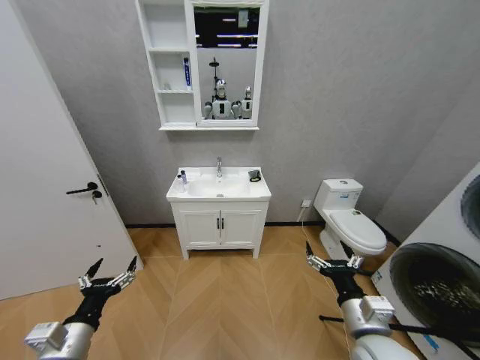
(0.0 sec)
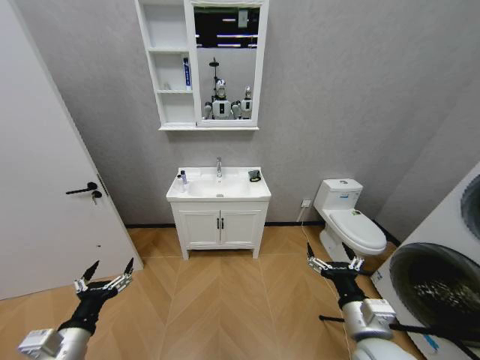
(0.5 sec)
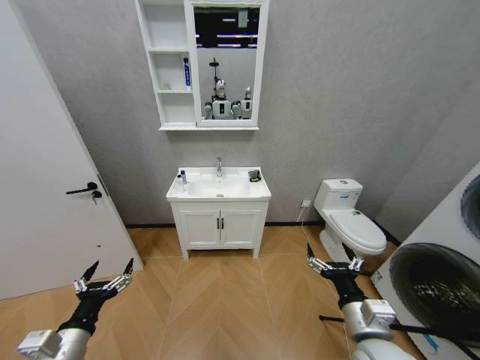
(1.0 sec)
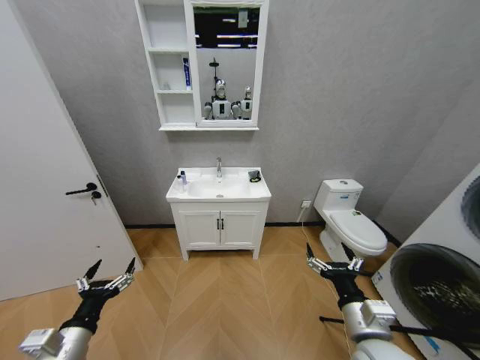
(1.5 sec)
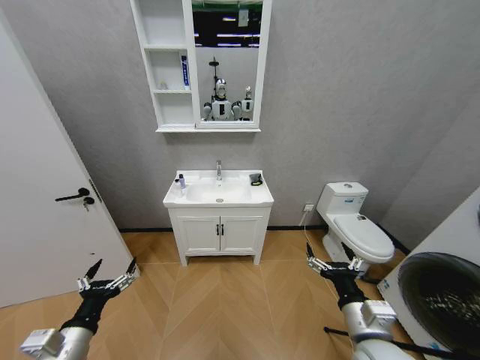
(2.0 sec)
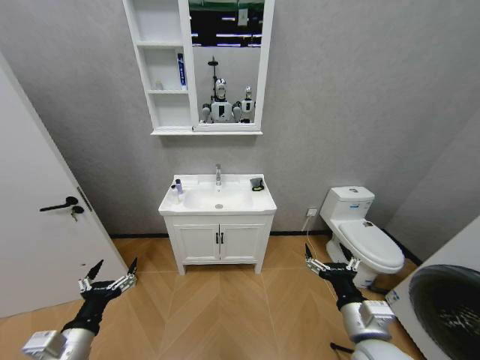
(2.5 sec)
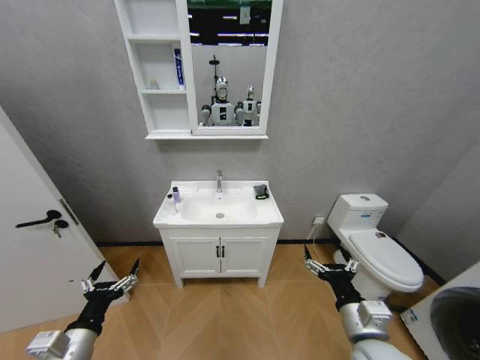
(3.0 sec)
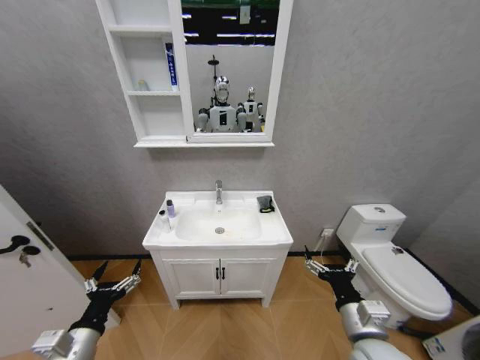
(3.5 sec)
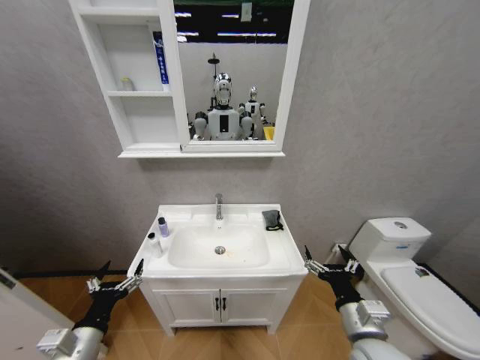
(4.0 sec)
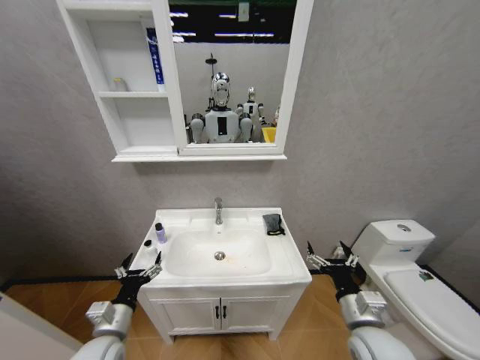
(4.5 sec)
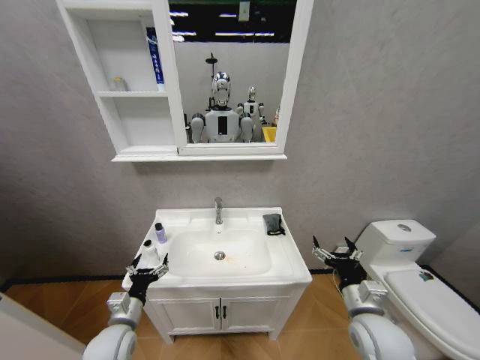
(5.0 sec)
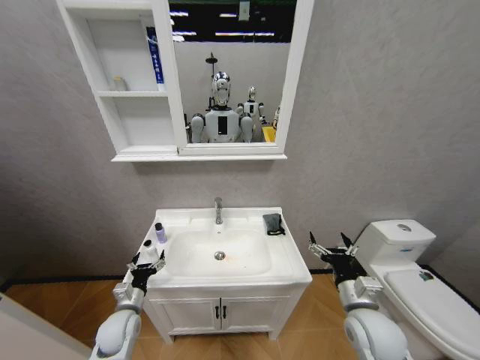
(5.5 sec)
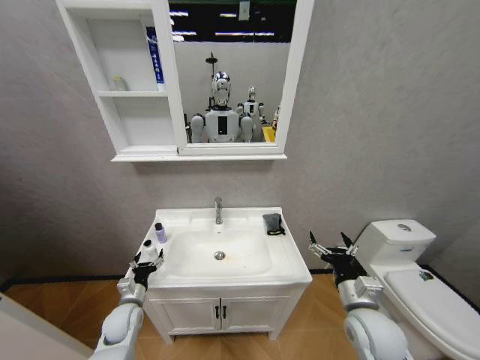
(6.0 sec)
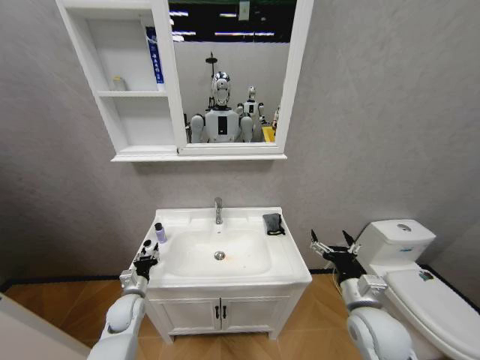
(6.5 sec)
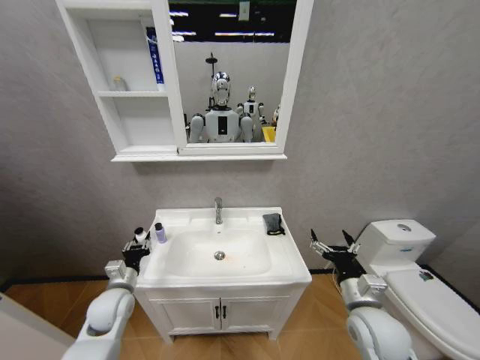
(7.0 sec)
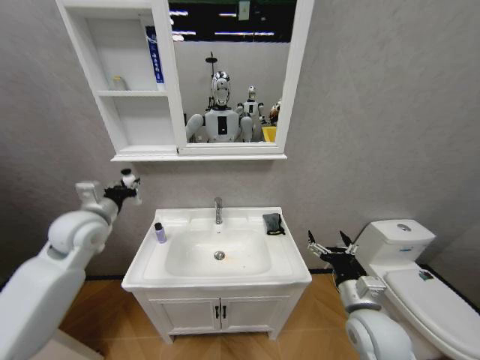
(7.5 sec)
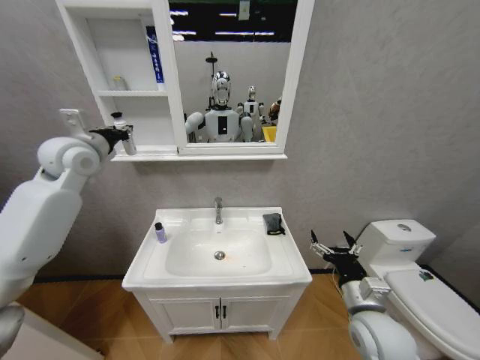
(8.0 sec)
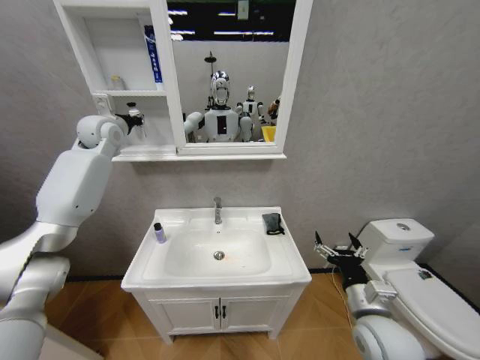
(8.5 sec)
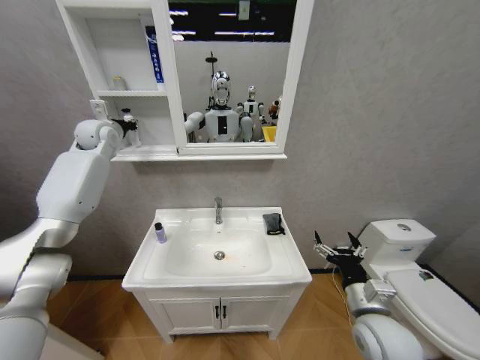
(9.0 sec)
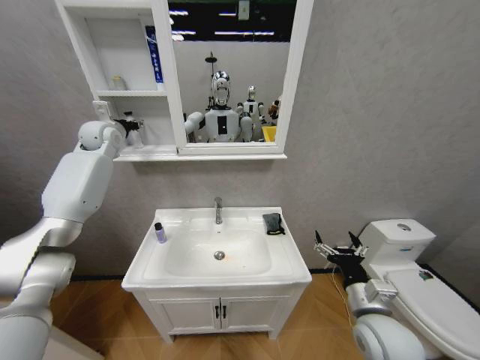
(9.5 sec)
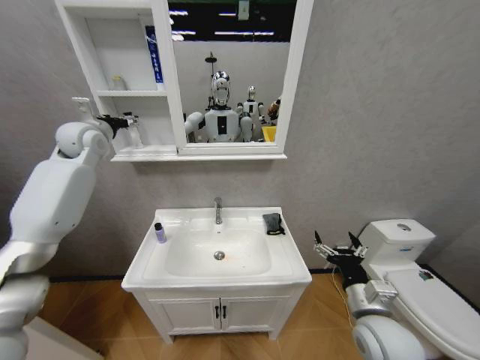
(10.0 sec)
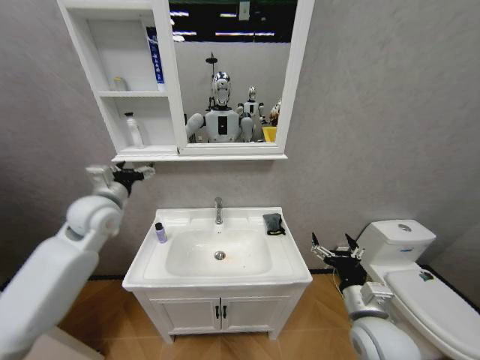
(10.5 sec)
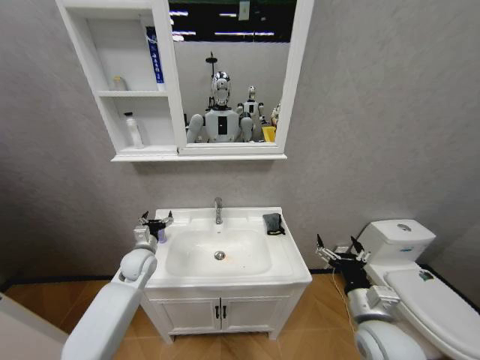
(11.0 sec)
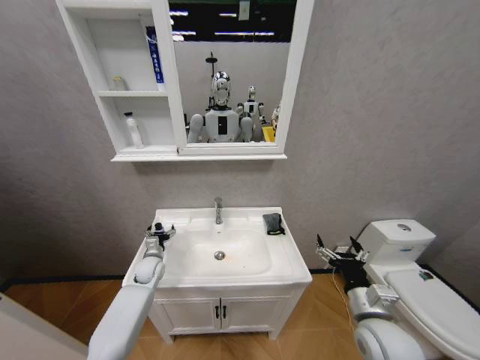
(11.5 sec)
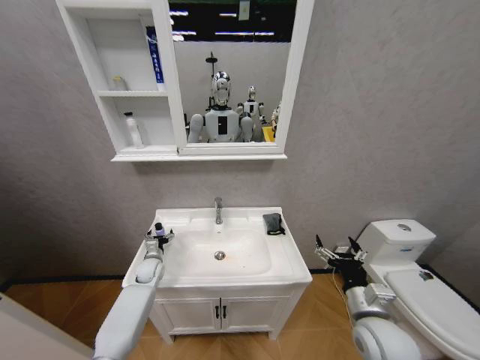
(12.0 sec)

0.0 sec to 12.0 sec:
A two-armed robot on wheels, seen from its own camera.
Task of the whole recording: Move facial cleanser and shampoo from washbasin to cabinet, then wipe washbasin with towel.
4.0 sec to 6.0 sec: The right gripper goes approximately 5 cm forward. Meanwhile the left gripper is displaced forward and downward by approximately 20 cm.
6.0 sec to 8.0 sec: The left gripper goes roughly 50 cm upward and forward, and closes its fingers.
8.0 sec to 10.0 sec: The left gripper shifts roughly 5 cm forward, and opens up.
10.0 sec to 12.0 sec: The left gripper shifts approximately 50 cm downward.

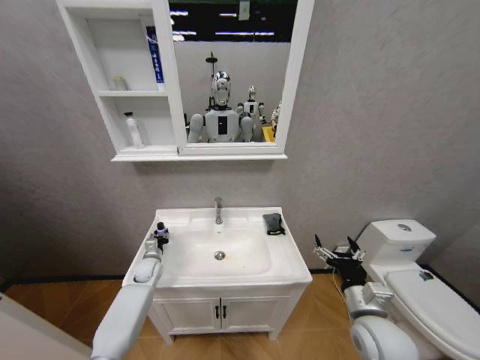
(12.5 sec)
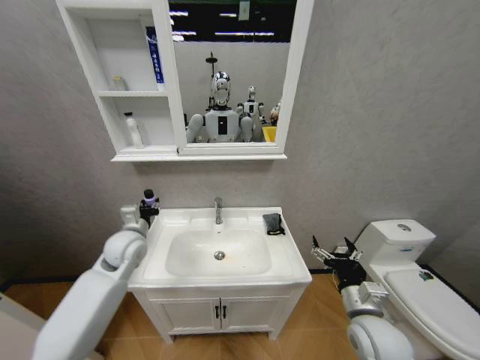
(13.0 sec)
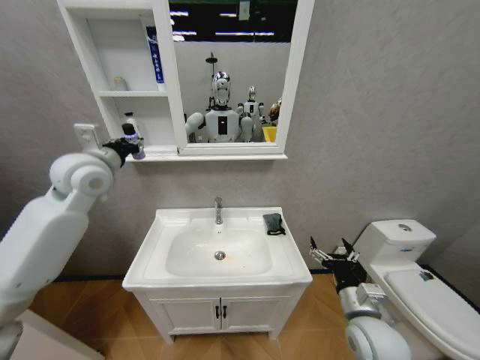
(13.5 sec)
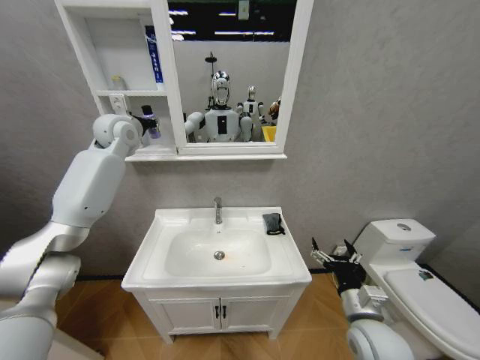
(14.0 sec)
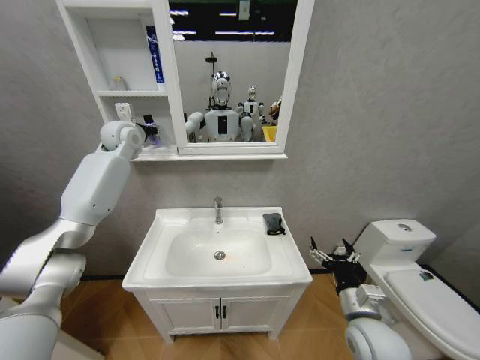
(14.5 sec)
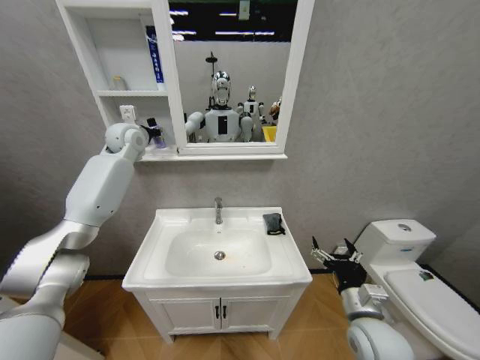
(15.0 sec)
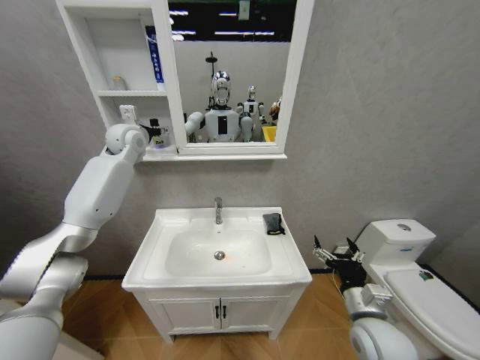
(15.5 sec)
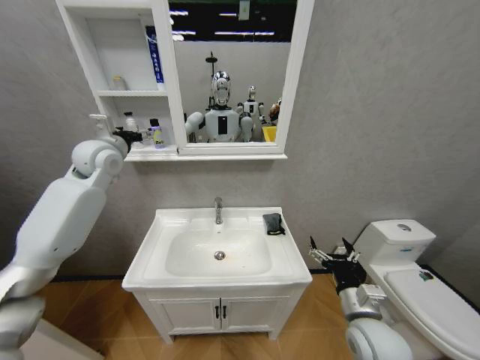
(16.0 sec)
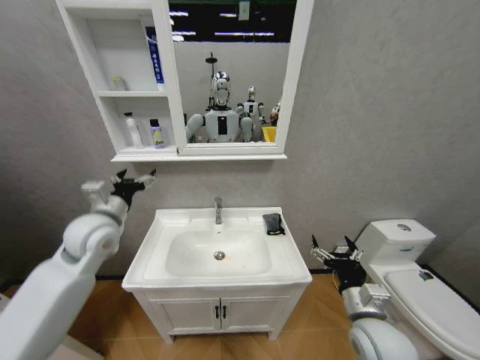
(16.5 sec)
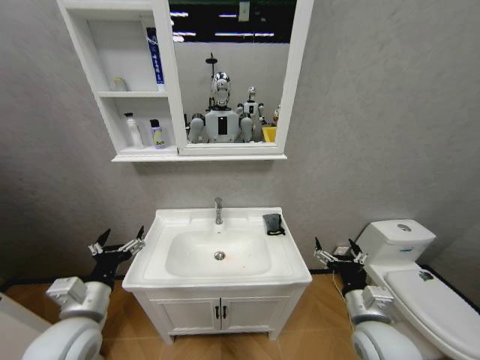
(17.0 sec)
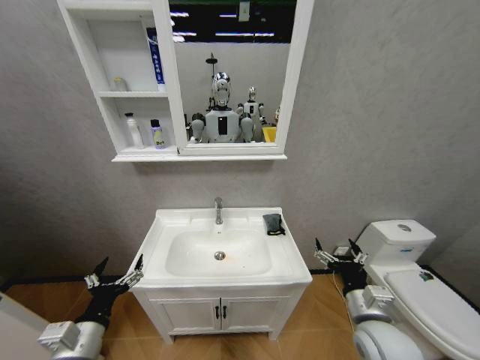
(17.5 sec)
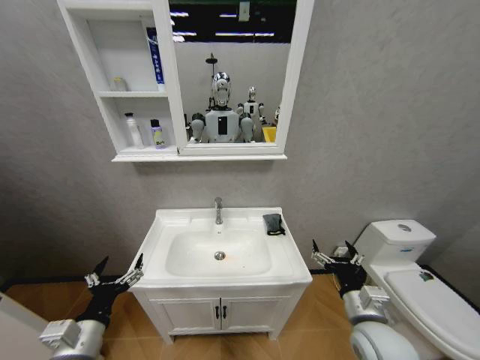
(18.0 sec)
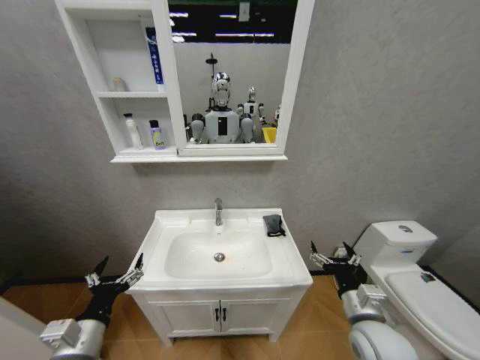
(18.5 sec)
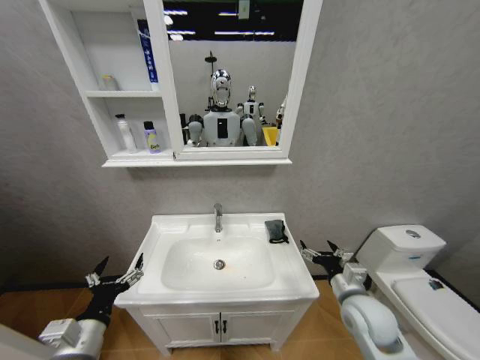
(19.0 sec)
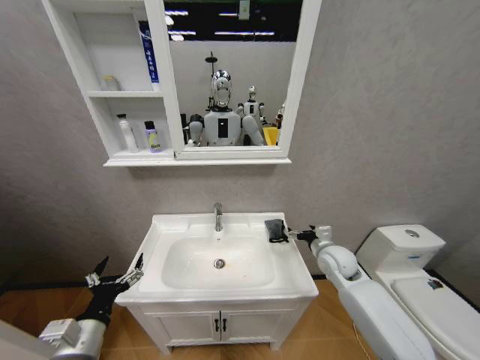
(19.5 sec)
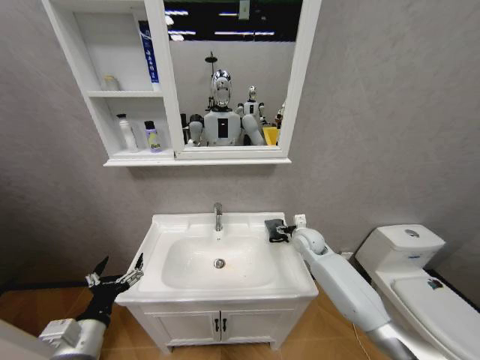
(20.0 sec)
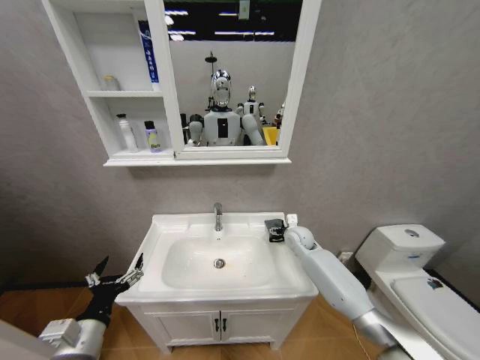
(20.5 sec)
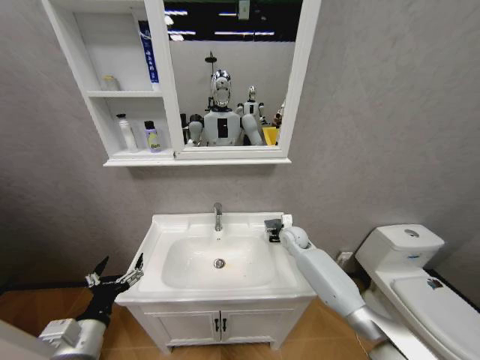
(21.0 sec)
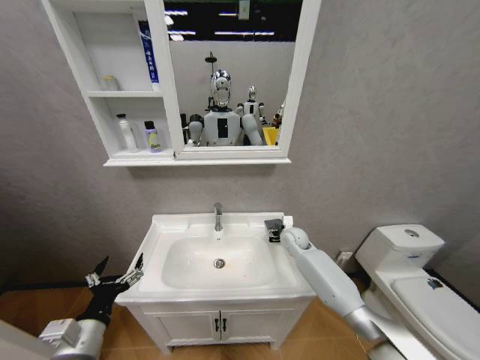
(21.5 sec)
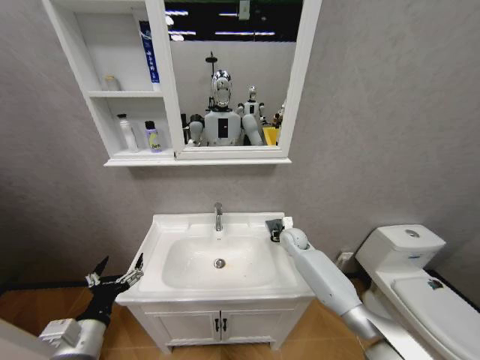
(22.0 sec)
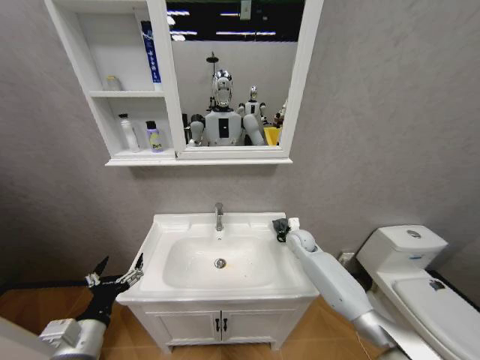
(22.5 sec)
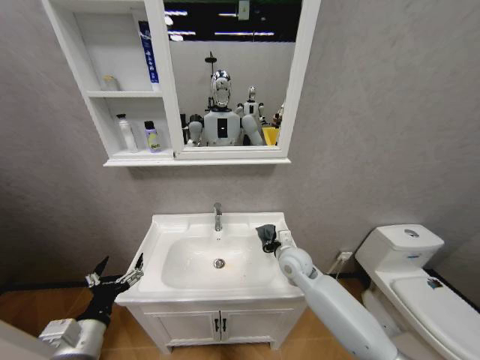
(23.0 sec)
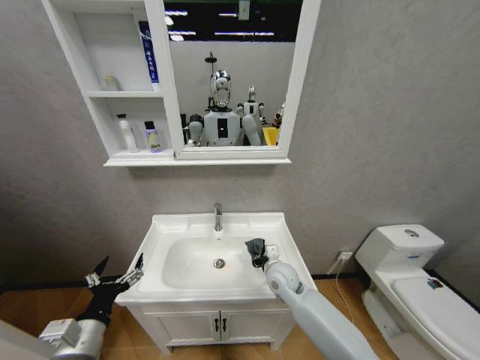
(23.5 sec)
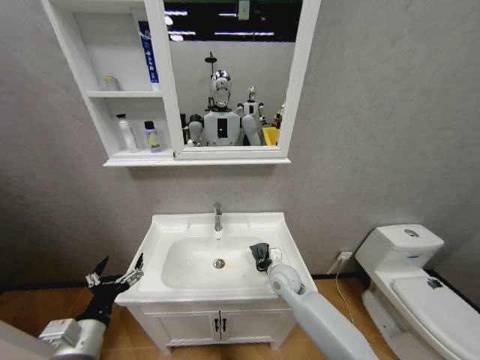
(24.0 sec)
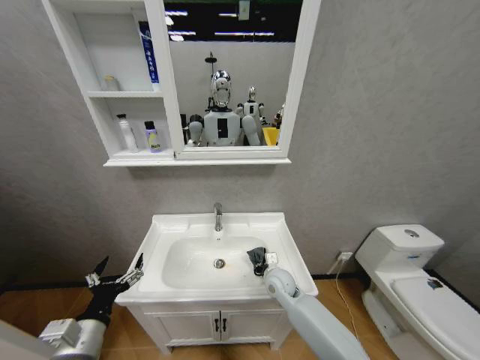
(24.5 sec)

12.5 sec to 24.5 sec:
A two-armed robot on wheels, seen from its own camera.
Task of the whole recording: Move facial cleanser and shampoo from washbasin to cabinet, then wipe washbasin with towel.
12.5 sec to 14.5 sec: The left gripper is displaced upward by roughly 40 cm.
14.5 sec to 16.5 sec: The left gripper travels backward and downward by approximately 30 cm, and opens up.
16.5 sec to 18.5 sec: The left gripper shifts about 25 cm backward and downward.
18.5 sec to 20.5 sec: The right gripper travels forward by roughly 30 cm.
20.5 sec to 22.5 sec: The right gripper closes up.
22.5 sec to 24.5 sec: The right gripper is displaced backward and to the left by some 15 cm.

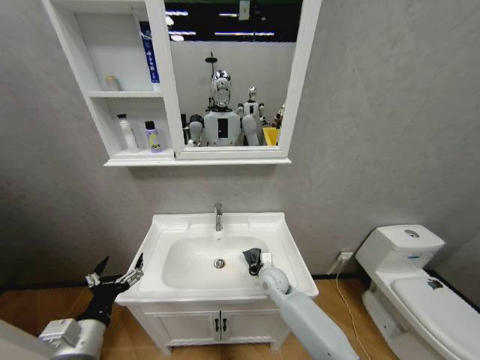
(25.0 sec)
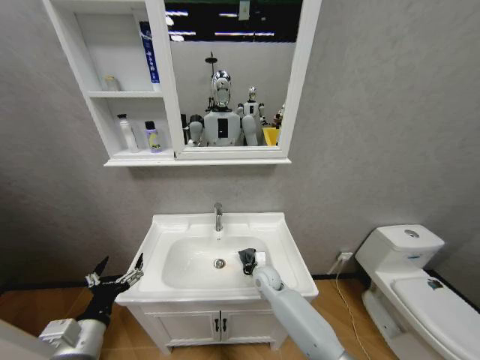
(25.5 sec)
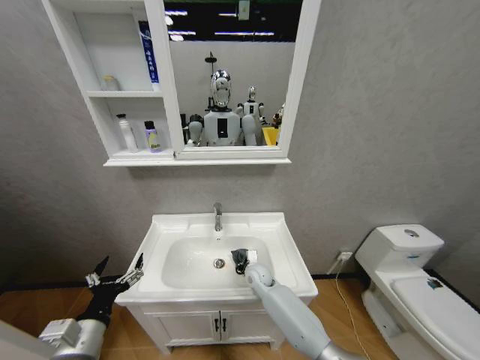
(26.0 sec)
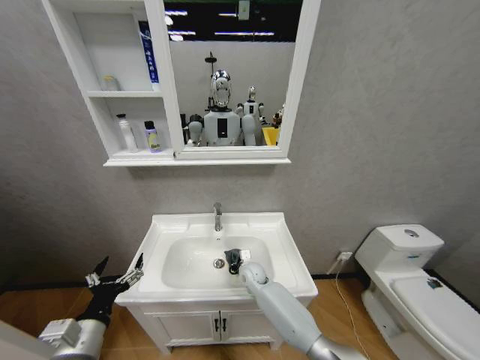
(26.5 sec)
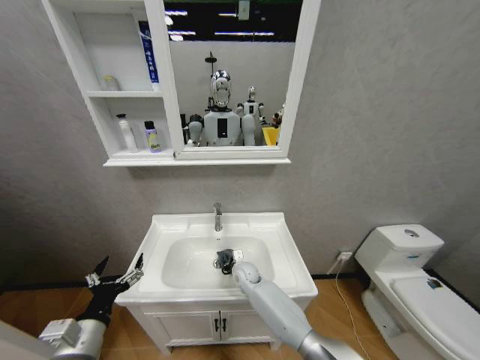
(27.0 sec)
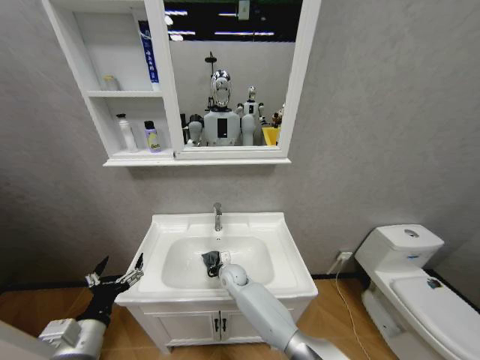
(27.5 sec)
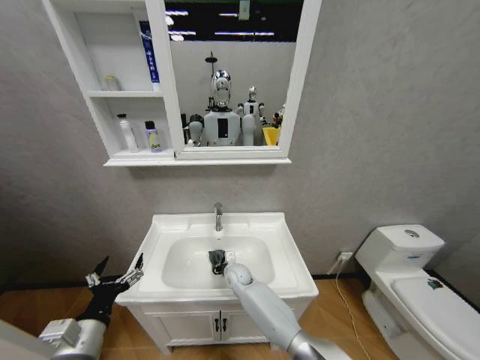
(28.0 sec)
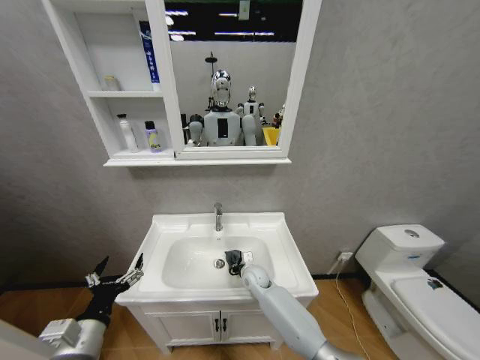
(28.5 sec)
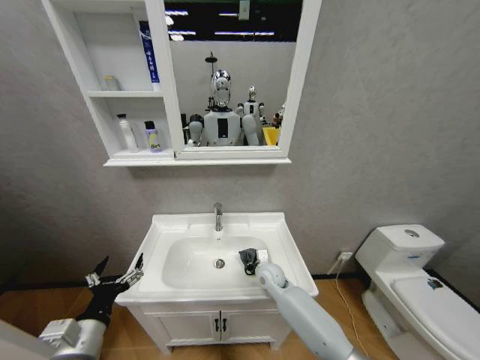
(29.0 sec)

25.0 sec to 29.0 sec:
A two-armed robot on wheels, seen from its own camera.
Task of the whole recording: Move facial cleanser and shampoo from washbasin to cabinet, then wipe washbasin with towel.
25.0 sec to 27.0 sec: The right gripper goes some 10 cm to the left.
27.0 sec to 29.0 sec: The right gripper heads to the right, covering roughly 10 cm.
